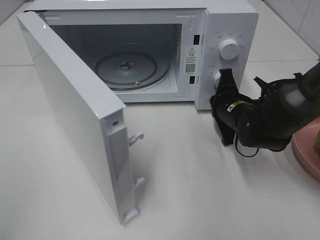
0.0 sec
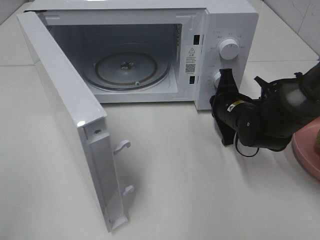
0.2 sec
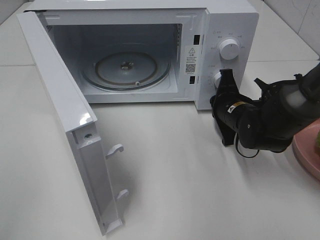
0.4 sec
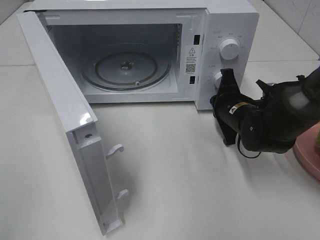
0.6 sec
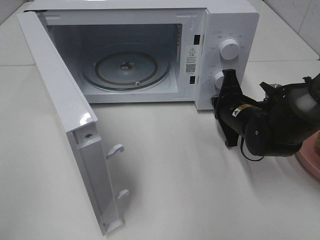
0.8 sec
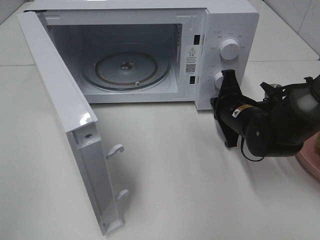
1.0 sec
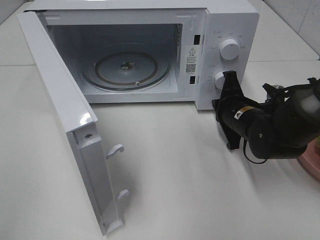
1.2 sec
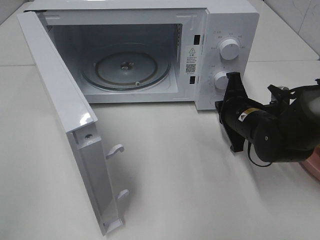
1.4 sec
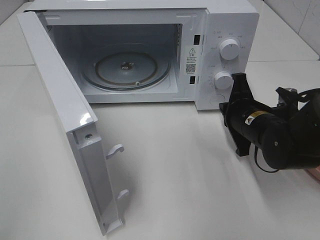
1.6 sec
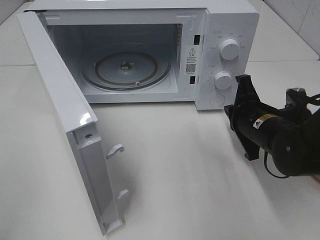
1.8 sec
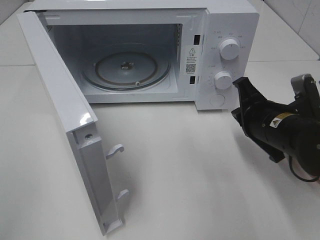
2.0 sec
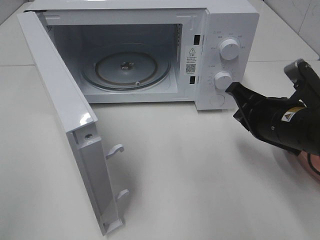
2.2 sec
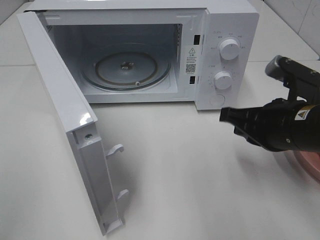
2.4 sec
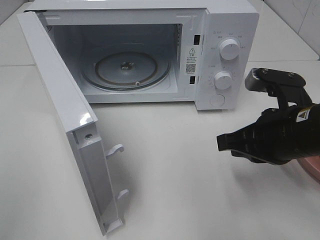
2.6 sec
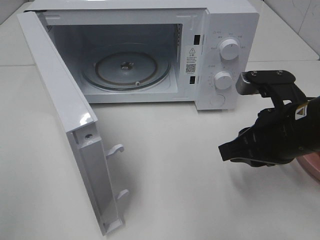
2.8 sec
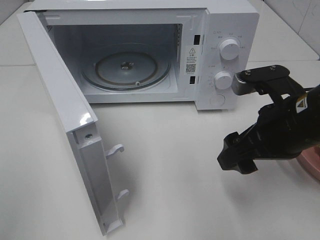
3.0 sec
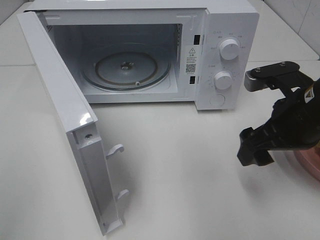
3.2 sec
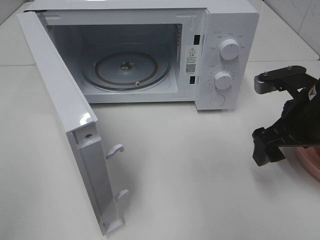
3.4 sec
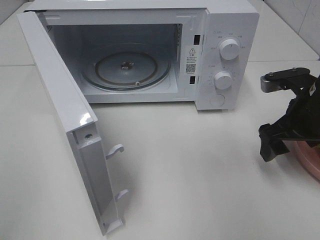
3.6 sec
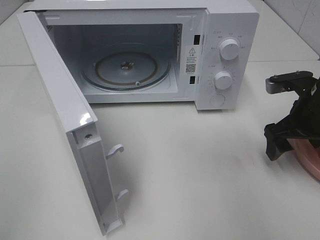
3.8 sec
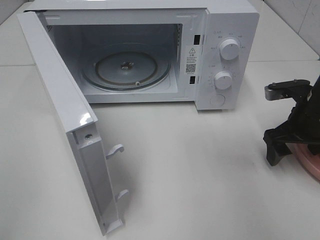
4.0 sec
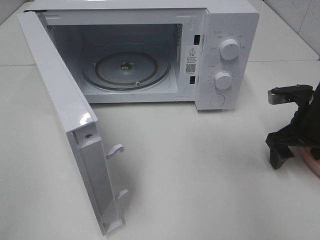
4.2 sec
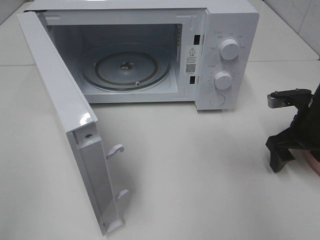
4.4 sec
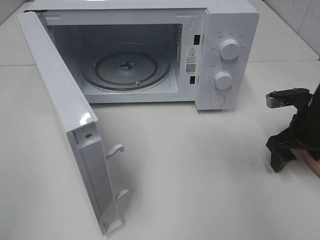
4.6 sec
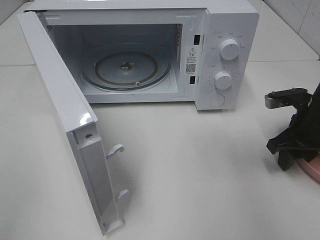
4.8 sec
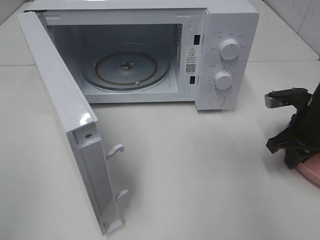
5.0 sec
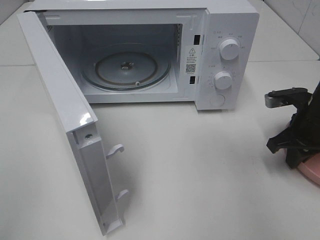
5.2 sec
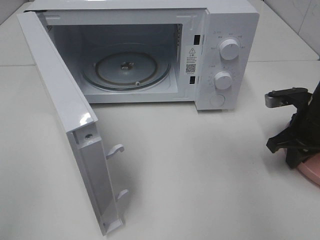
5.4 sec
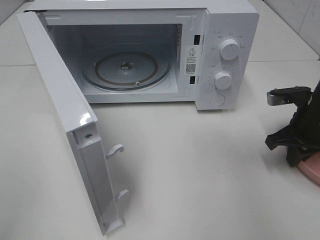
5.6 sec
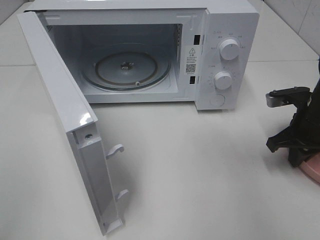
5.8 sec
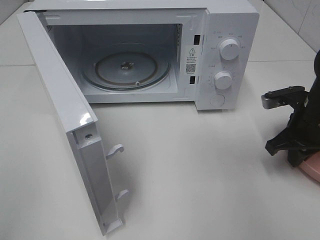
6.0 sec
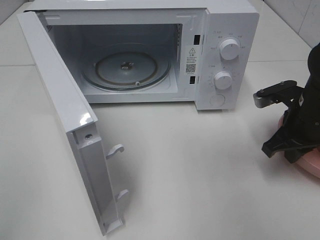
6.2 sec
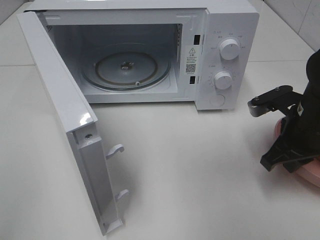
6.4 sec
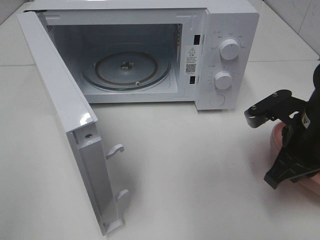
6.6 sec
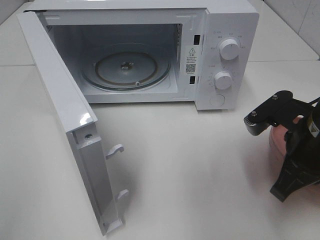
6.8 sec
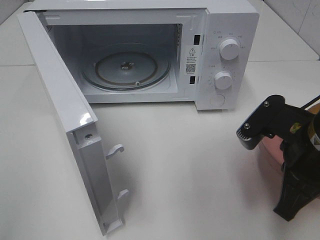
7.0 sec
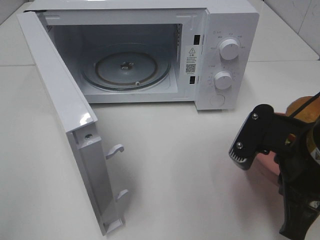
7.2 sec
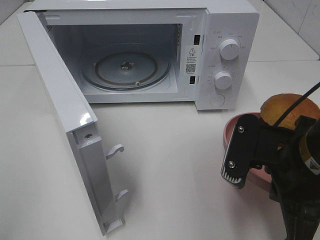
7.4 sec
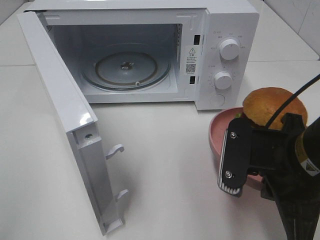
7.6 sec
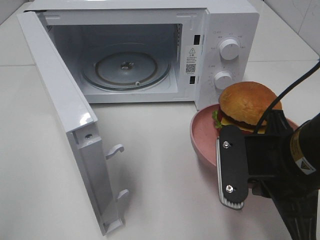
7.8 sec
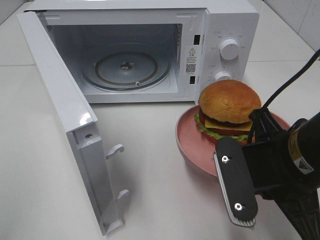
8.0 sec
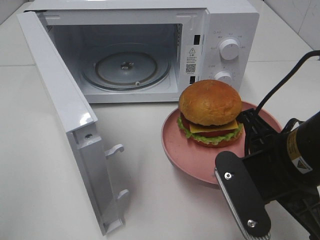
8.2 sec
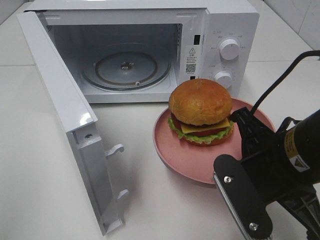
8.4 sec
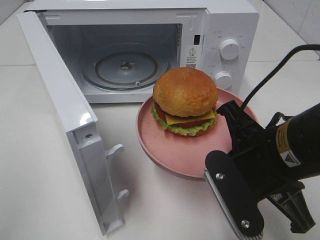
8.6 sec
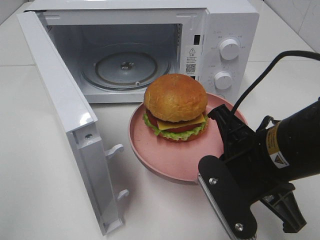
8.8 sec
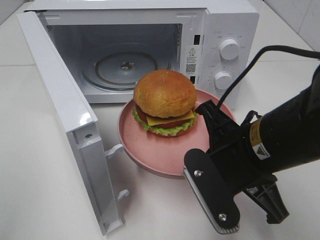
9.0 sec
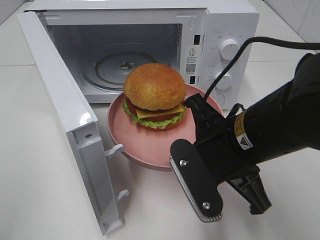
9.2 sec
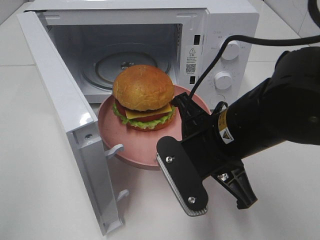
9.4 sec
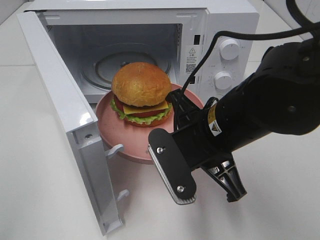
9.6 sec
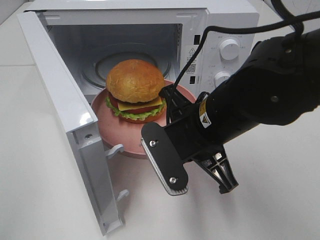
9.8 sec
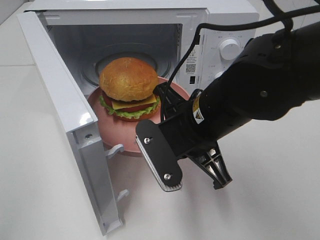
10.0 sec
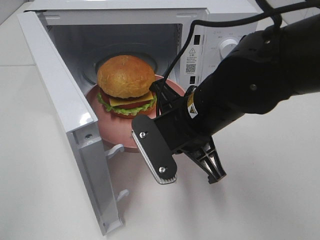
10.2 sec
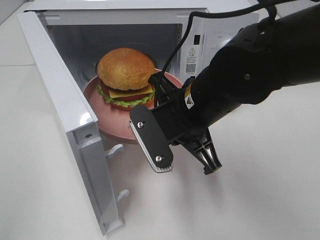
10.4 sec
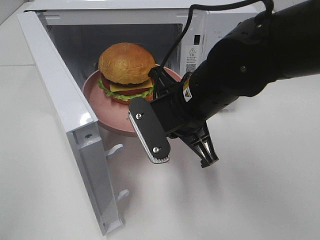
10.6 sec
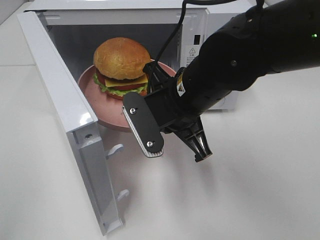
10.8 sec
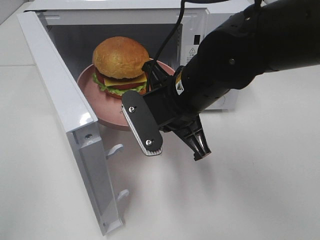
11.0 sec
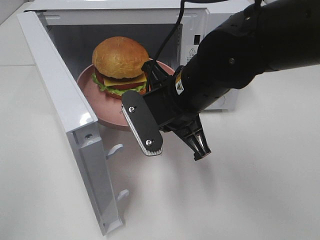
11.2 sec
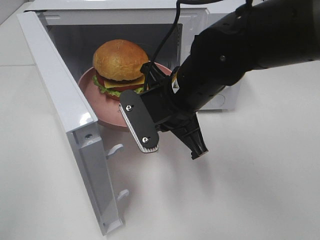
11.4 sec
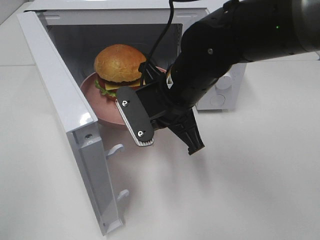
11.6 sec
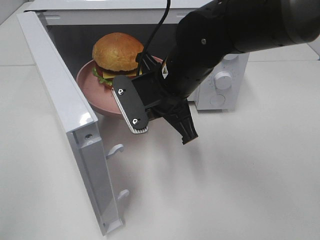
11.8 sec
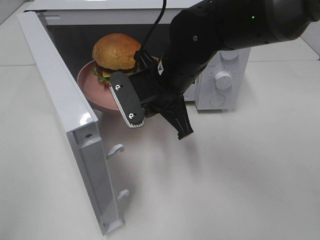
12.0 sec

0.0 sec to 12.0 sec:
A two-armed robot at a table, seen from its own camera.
Task of the whole recording: Heat the burger.
Step, 1.4 sec to 5.2 sec: Right hand: grab the plate with the hamburger.
0.0 sec to 1.6 sec: The right gripper goes roughly 5 cm backward.
1.6 sec to 3.0 sec: The right gripper goes approximately 15 cm upward and backward, and opens up.
3.0 sec to 4.4 sec: The right gripper travels to the right, forward and downward by roughly 15 cm.
4.4 sec to 6.0 sec: The right gripper closes its fingers.
6.0 sec to 7.6 sec: The right gripper heads backward, to the left and upward, covering some 20 cm.
9.0 sec to 10.4 sec: The right gripper shifts roughly 10 cm forward and to the left.
10.4 sec to 12.0 sec: The right gripper travels forward by about 5 cm.

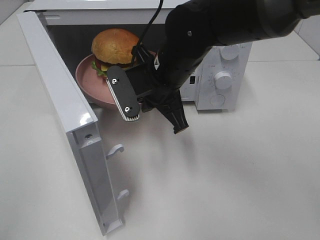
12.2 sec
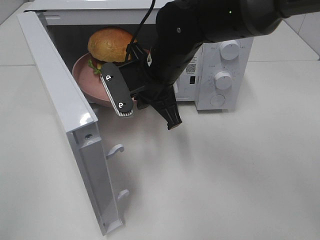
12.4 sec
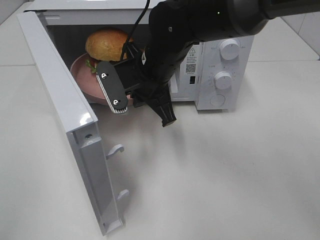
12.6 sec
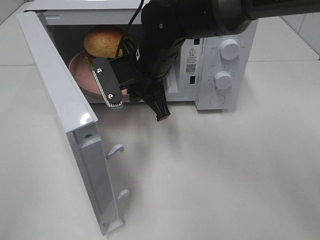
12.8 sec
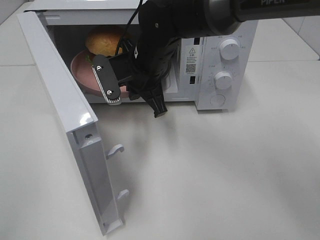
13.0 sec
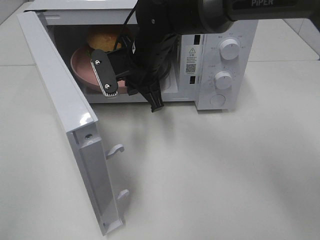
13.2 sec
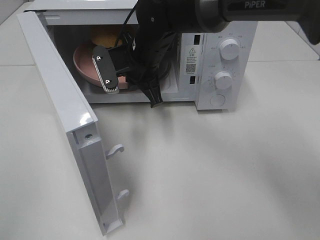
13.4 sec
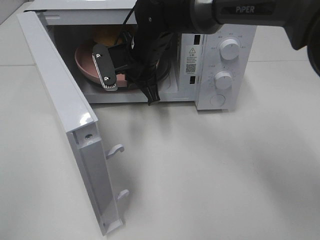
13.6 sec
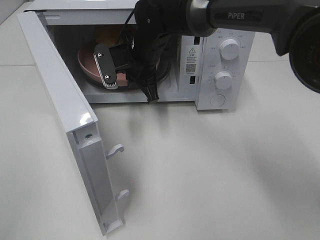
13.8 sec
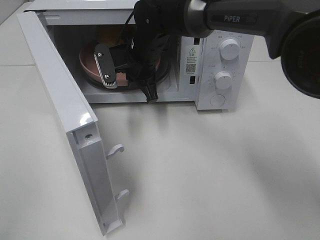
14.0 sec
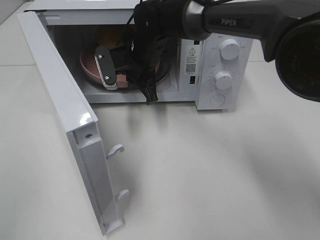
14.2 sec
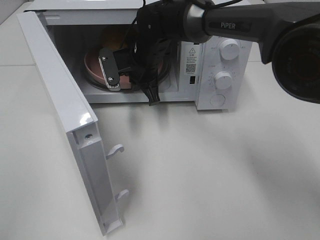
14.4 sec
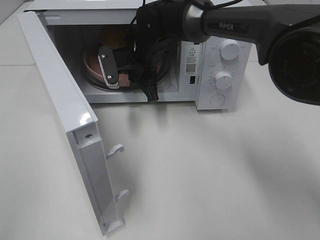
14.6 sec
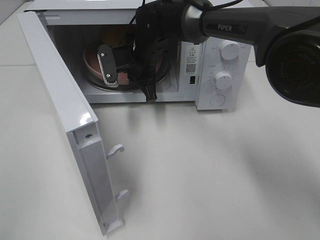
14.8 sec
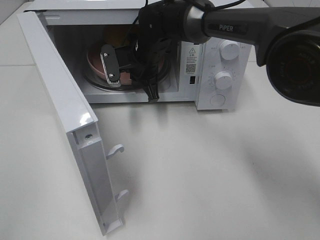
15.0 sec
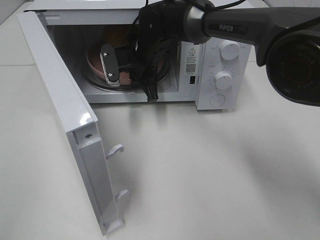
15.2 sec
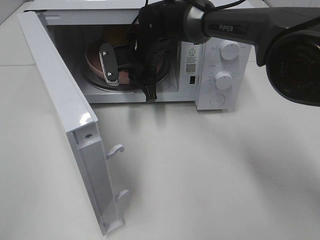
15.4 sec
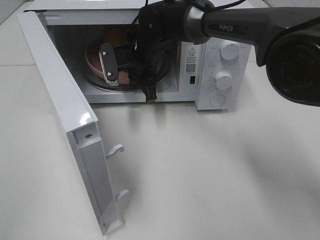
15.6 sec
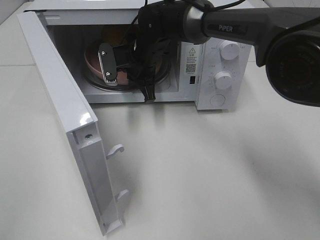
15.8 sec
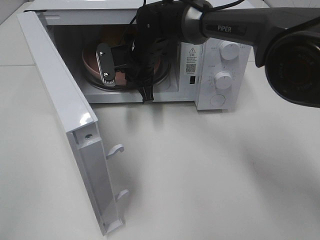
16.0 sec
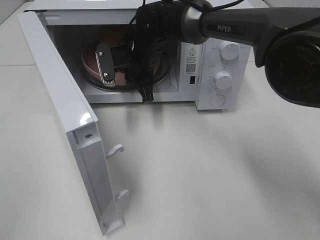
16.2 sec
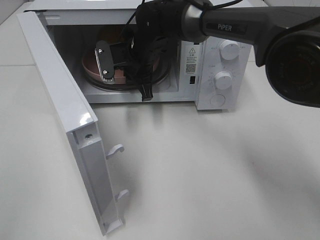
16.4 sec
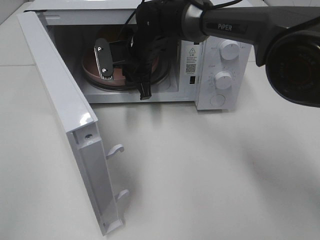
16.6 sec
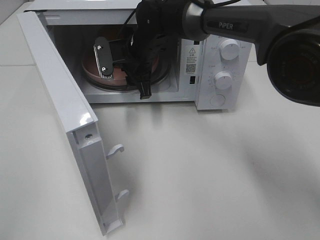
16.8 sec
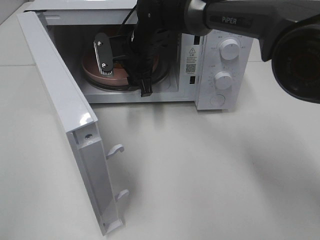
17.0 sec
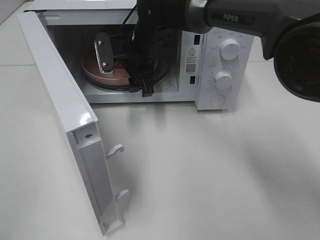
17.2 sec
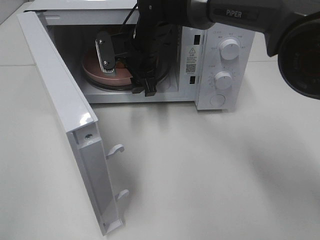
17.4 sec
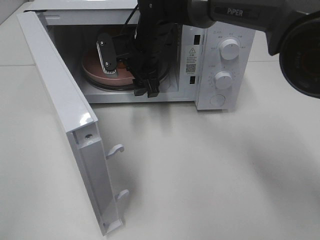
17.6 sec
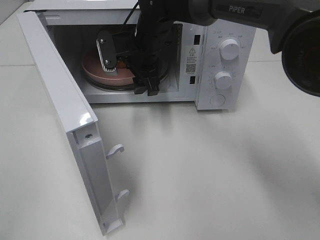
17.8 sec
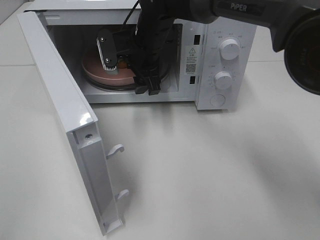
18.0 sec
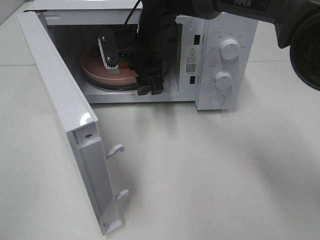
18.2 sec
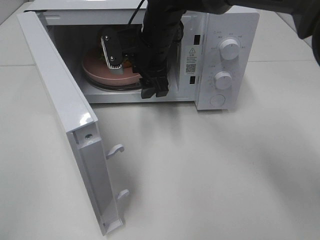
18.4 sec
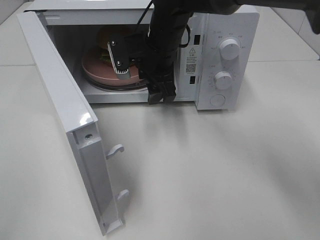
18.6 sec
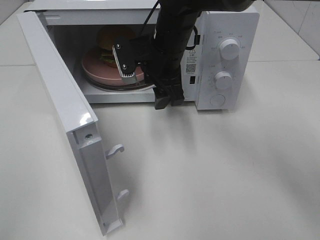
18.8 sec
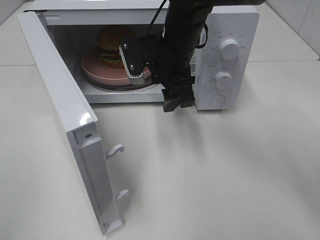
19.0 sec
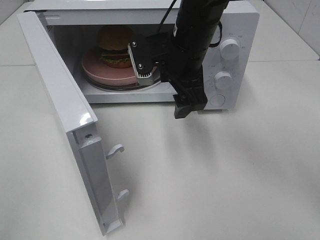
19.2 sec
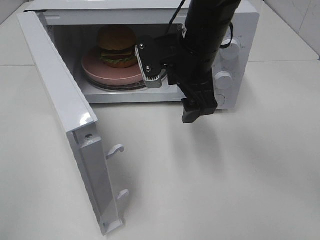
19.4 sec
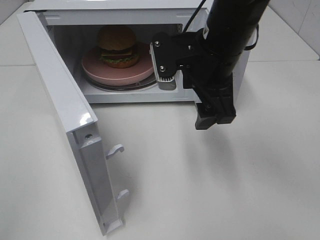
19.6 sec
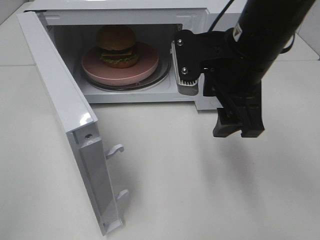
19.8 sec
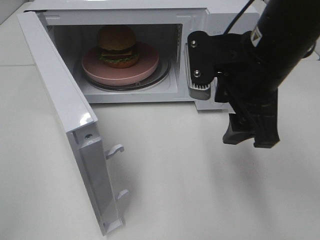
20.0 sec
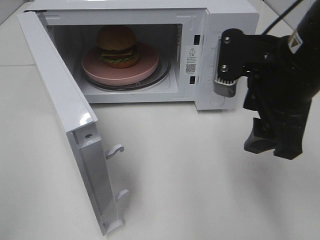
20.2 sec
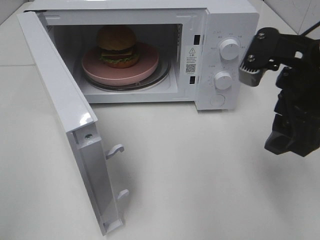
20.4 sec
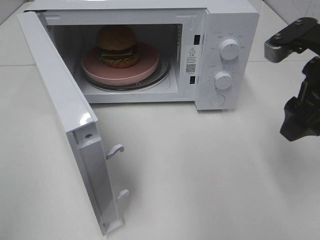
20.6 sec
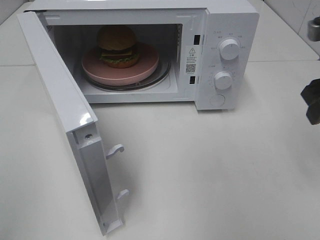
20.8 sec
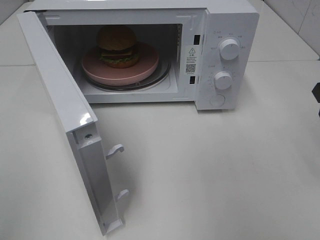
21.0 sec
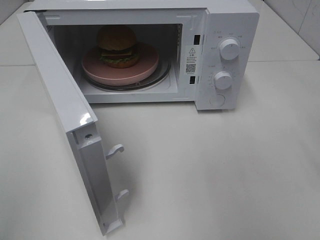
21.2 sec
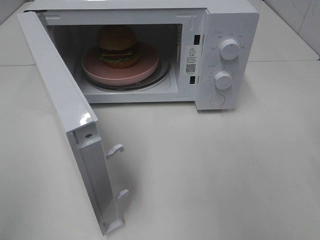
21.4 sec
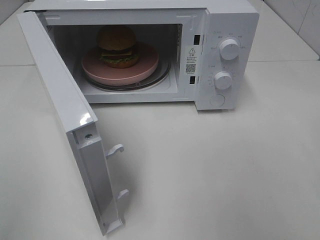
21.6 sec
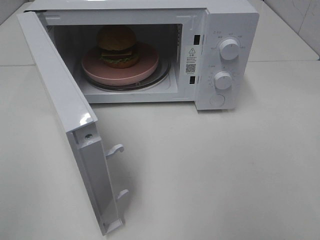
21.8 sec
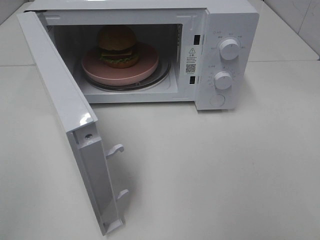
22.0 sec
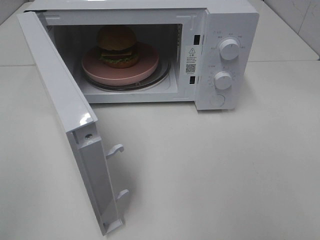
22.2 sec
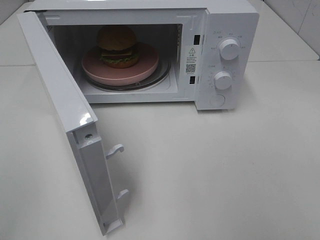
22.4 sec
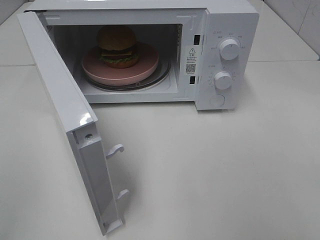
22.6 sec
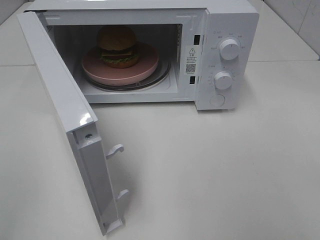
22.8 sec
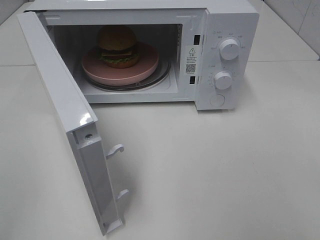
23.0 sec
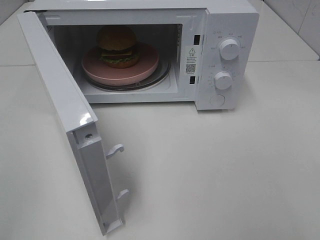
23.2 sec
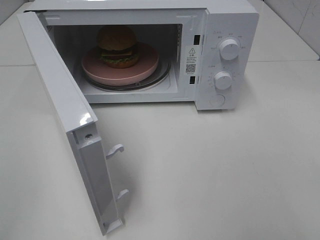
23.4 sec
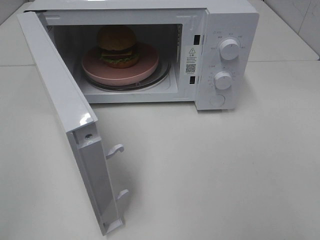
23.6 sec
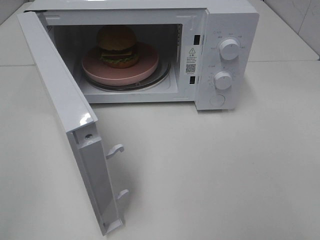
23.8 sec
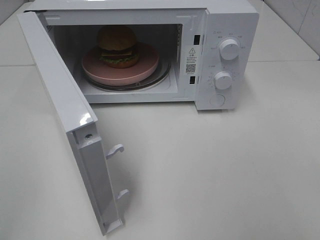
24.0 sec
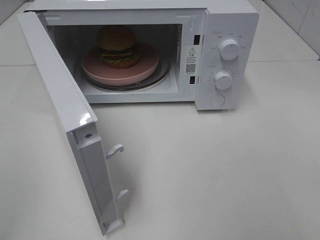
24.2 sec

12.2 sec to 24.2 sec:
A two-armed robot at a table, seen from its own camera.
Task of the whole recording: Heat the burger.
Step, 12.2 sec to 16.6 sec: Right hand: place the plate in the microwave.
12.2 sec to 13.8 sec: The right gripper moves forward, approximately 10 cm.
13.8 sec to 15.2 sec: The grippers stay close to where they were, moving slightly.
15.2 sec to 16.6 sec: The right gripper opens up.
16.6 sec to 18.2 sec: The grippers make only small movements.
18.2 sec to 19.8 sec: The right gripper heads backward and to the right, covering some 20 cm.
19.8 sec to 21.2 sec: The right gripper moves to the right, some 20 cm.
